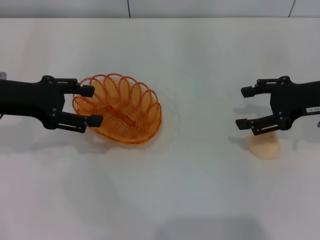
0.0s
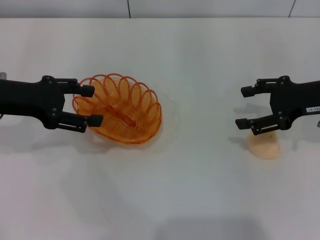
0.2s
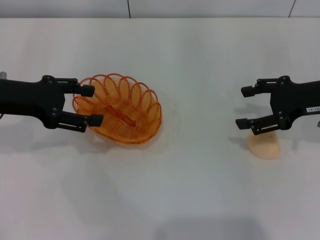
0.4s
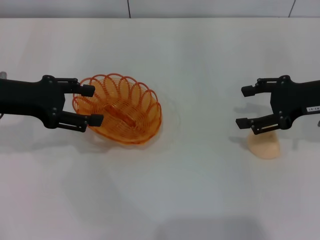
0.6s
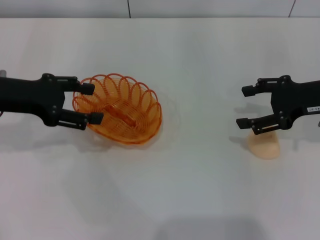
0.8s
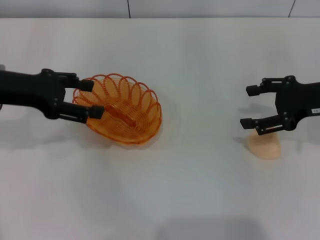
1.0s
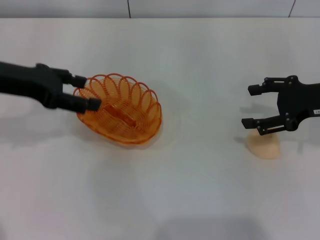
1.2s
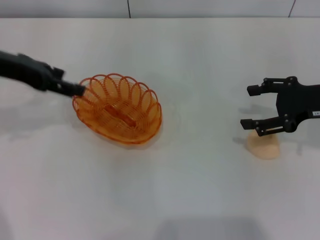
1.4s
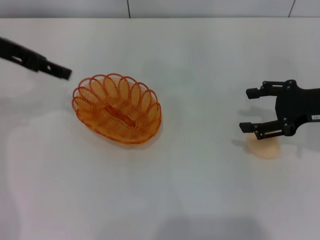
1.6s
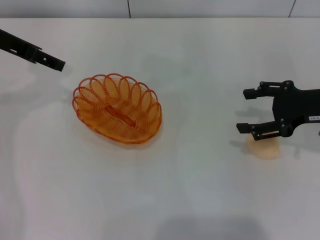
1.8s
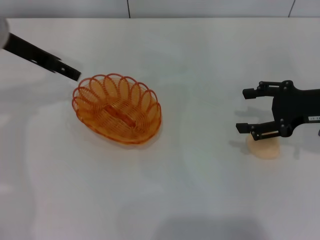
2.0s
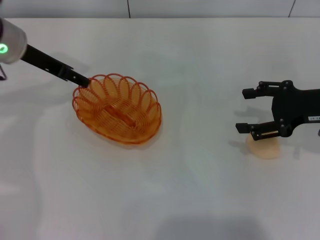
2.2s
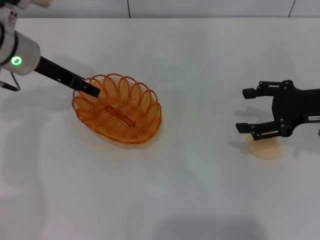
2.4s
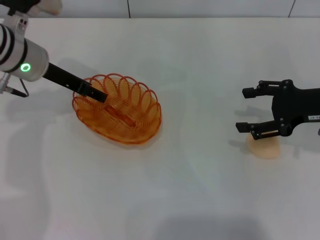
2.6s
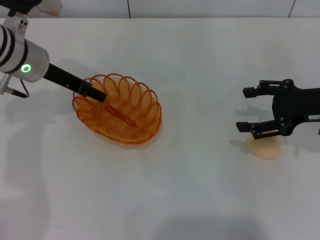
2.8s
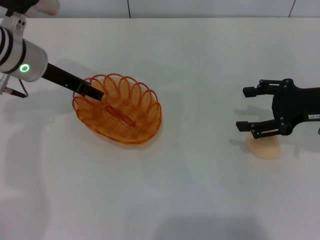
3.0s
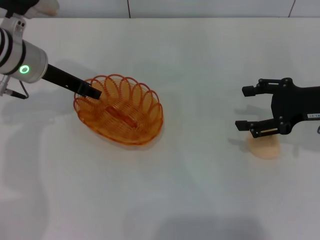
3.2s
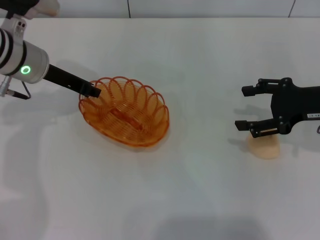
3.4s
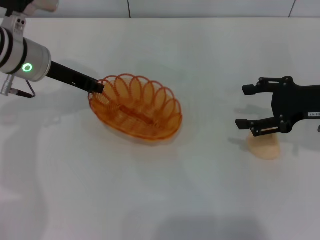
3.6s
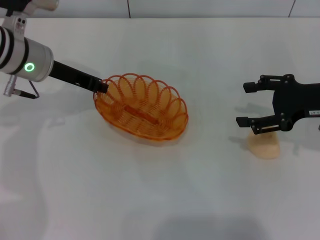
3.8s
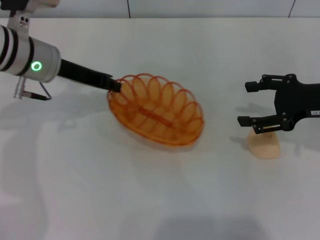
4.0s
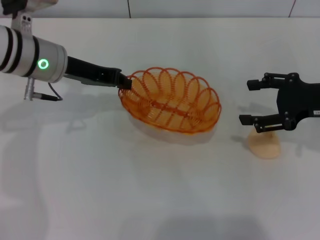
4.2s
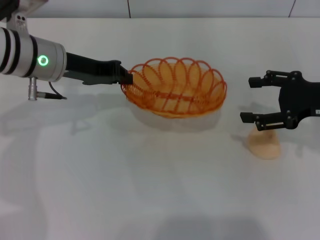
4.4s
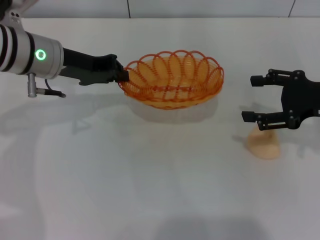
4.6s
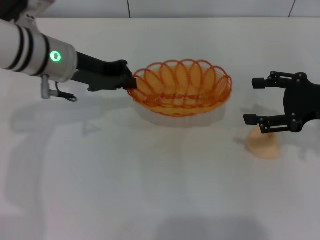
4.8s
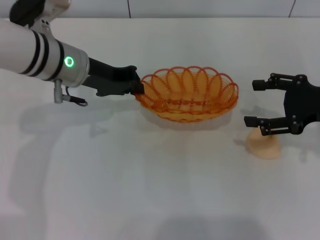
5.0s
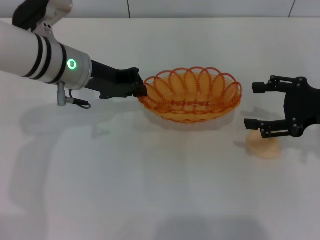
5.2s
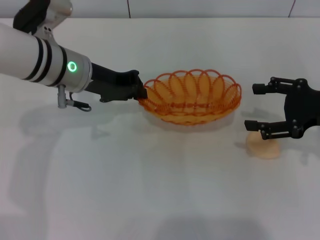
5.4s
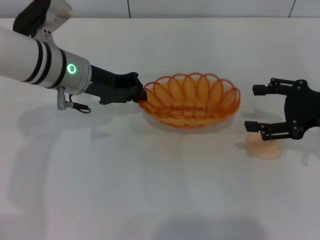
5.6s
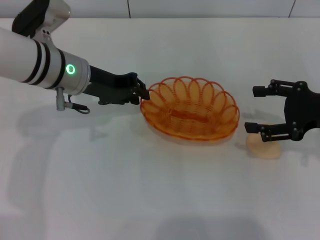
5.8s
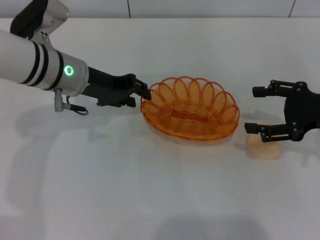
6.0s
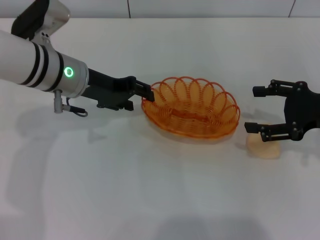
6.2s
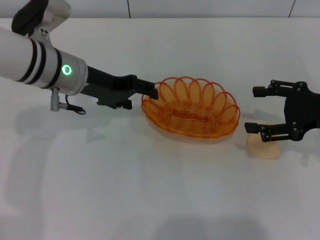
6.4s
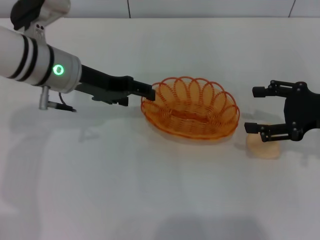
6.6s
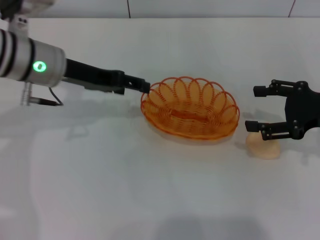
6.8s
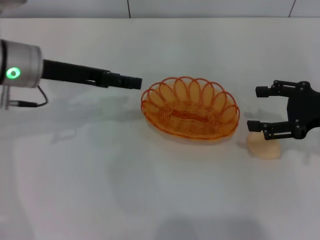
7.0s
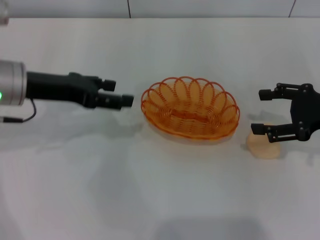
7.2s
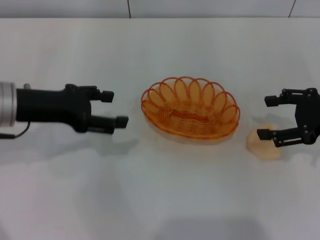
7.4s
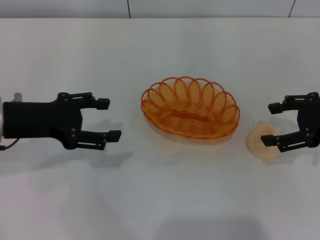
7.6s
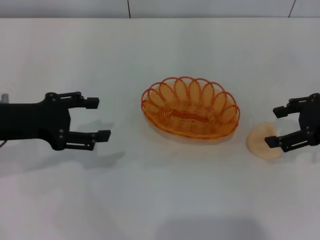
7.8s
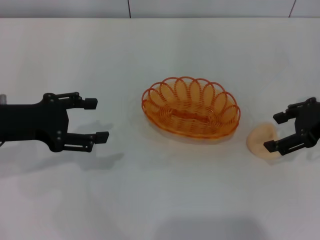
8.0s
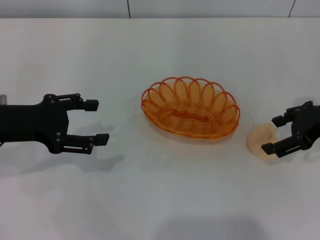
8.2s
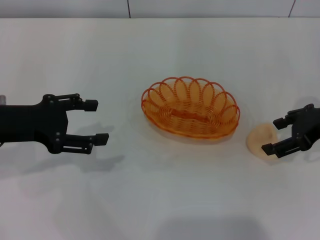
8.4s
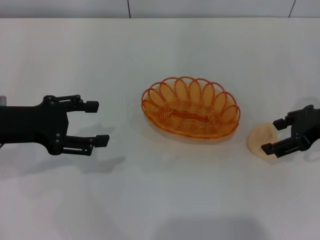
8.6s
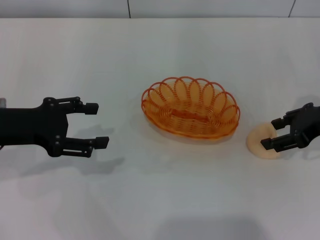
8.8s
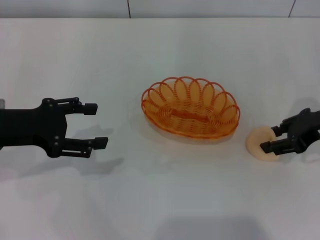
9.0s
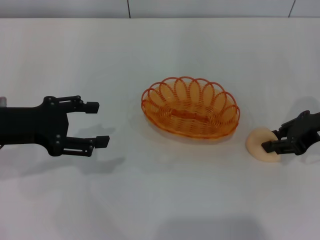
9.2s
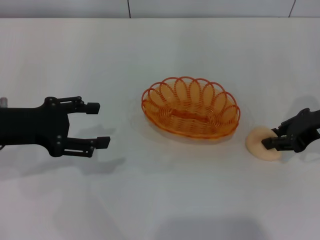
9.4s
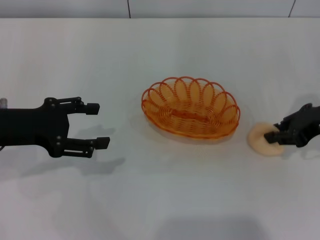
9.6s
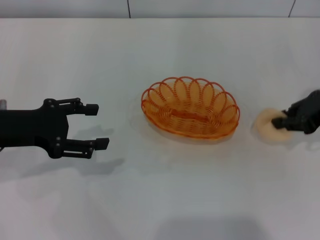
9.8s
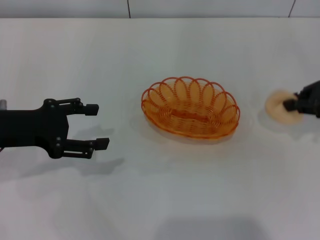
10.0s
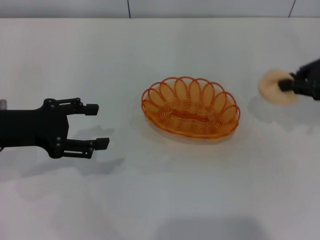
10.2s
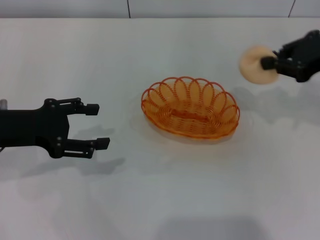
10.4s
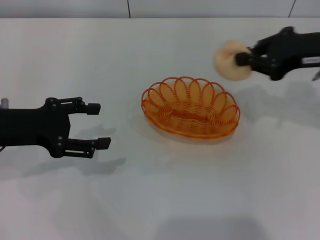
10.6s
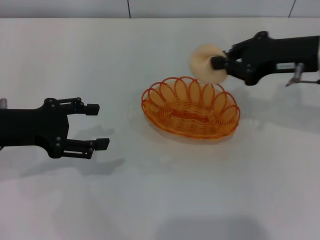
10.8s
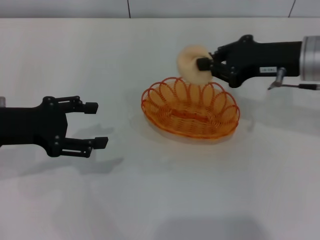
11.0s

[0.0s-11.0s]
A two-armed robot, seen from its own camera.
Step, 0.0s to 4.0s: Pick up the basket with the left gripper.
Step, 4.2s to 6.8s: Place the basket in the center of view with the left gripper.
Step, 7.0s to 10.2s: Pick up the egg yolk pastry with the right gripper.
0.0s to 1.6s: The left gripper travels upward by about 10 cm.
1.6s to 3.2s: The left gripper is displaced downward and to the right by about 10 cm, and closes up.
3.2s to 4.8s: The left gripper closes.
4.8s to 6.2s: The left gripper opens its fingers.
6.2s to 7.8s: The left gripper shifts about 15 cm to the left and backward, and opens up.
7.8s to 9.4s: The right gripper closes.
9.4s to 11.0s: The right gripper travels to the left by approximately 5 cm.

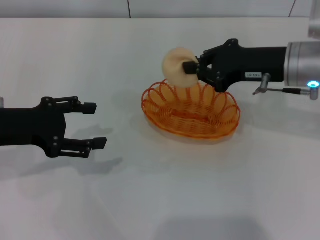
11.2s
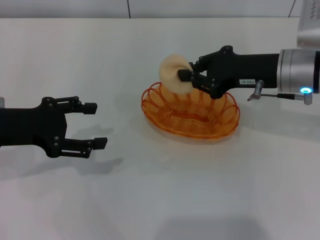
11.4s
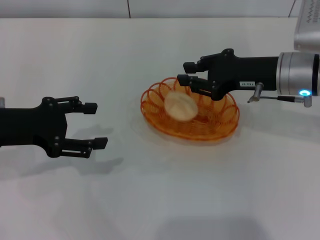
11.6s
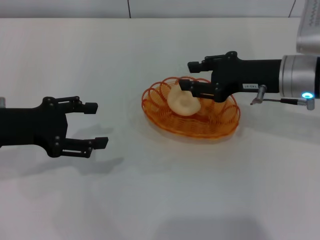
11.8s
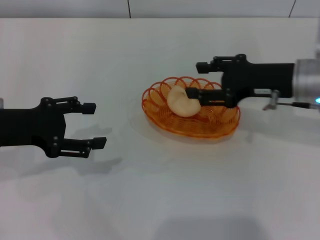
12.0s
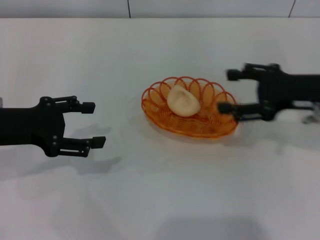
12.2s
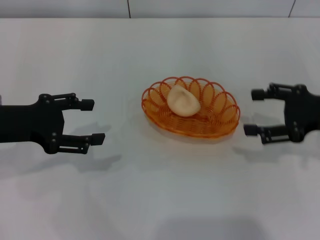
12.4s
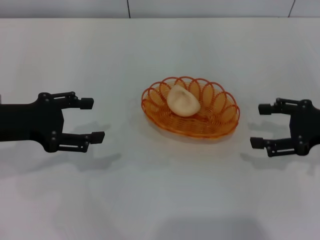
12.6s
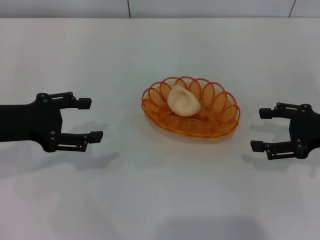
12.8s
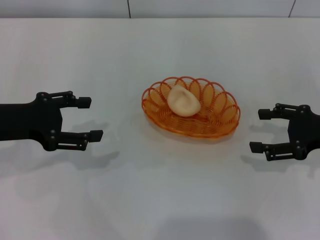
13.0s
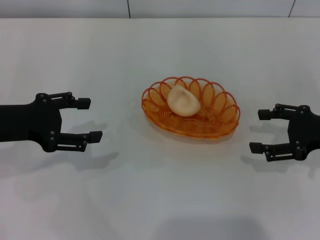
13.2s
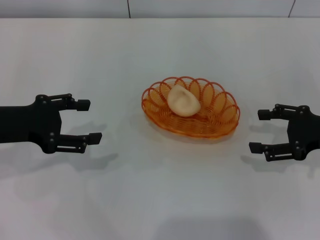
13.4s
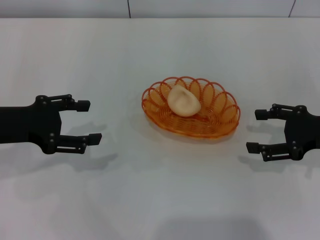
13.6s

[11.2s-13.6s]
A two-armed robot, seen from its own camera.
11.2s to 12.4s: The right gripper moves to the right and backward, about 10 cm, and opens.
12.4s to 13.6s: The grippers make only small movements.

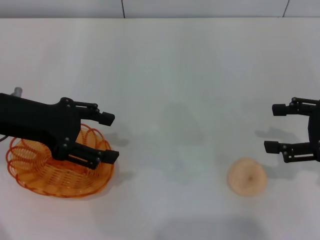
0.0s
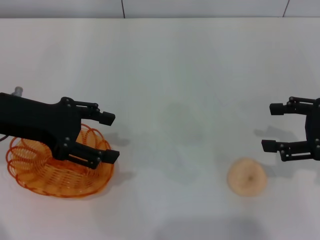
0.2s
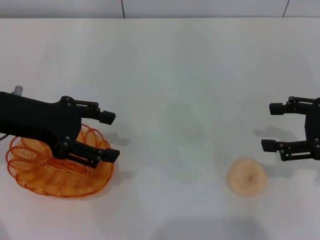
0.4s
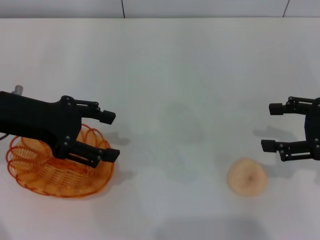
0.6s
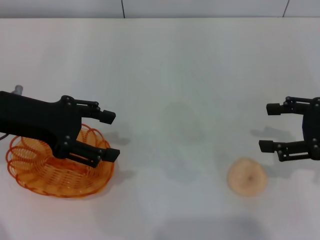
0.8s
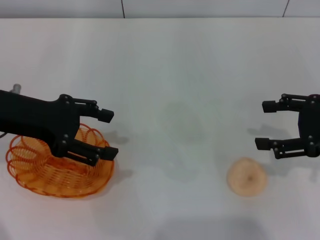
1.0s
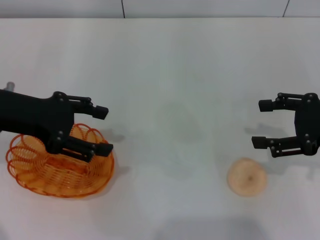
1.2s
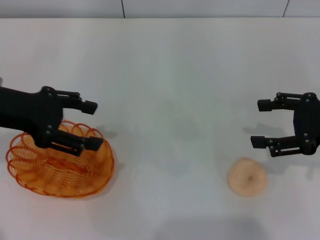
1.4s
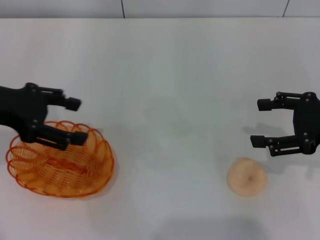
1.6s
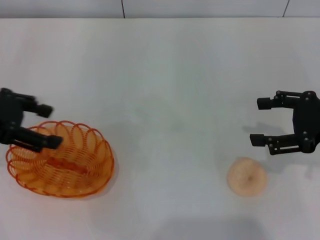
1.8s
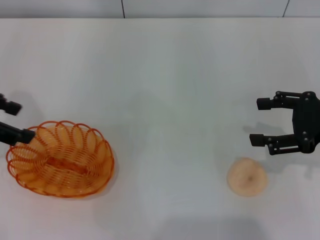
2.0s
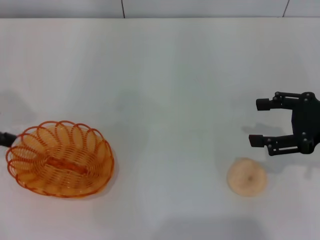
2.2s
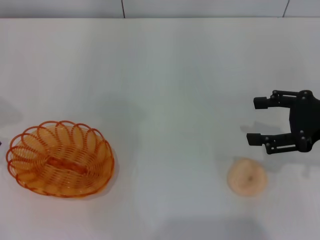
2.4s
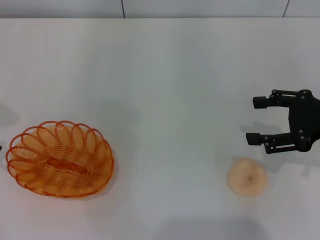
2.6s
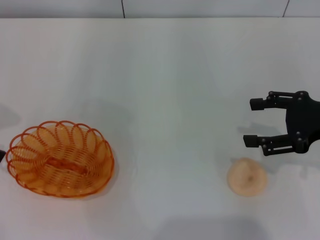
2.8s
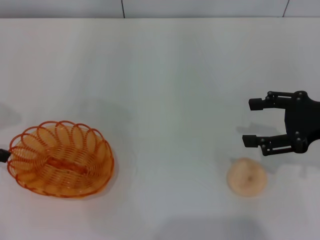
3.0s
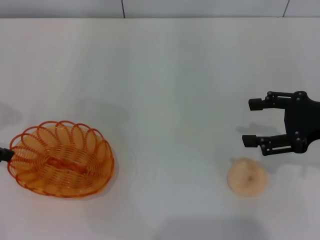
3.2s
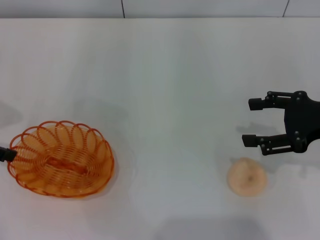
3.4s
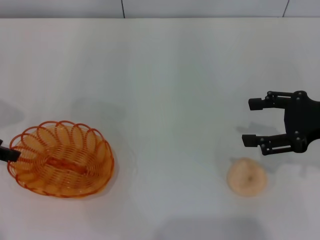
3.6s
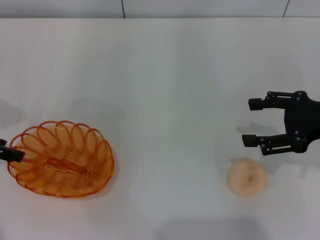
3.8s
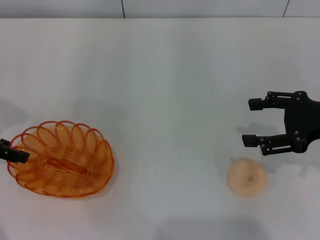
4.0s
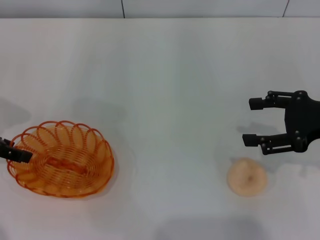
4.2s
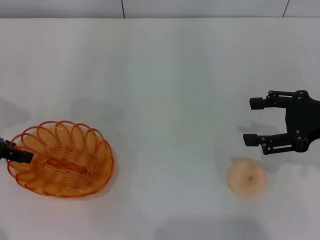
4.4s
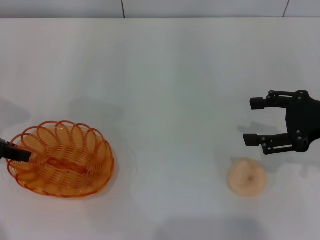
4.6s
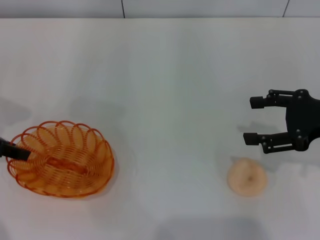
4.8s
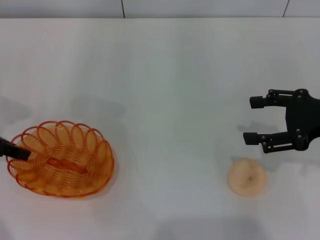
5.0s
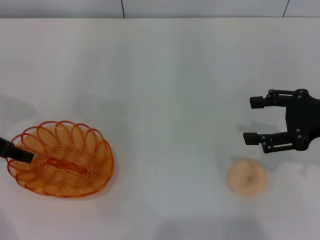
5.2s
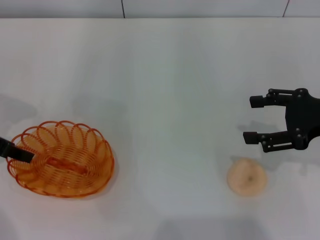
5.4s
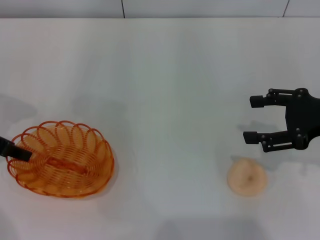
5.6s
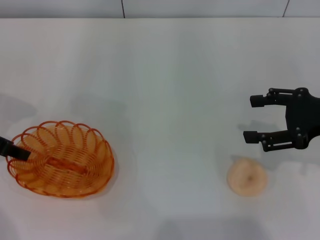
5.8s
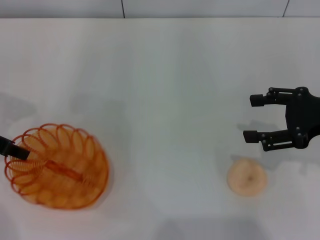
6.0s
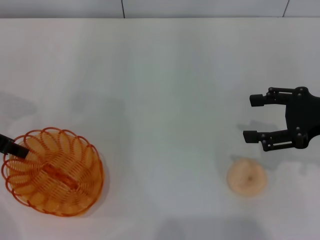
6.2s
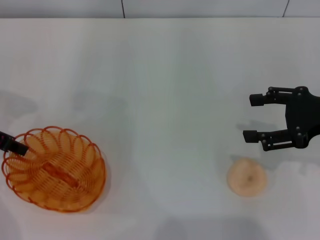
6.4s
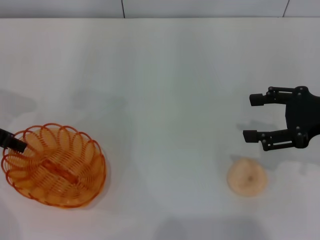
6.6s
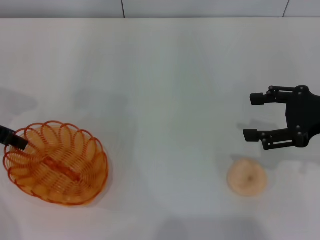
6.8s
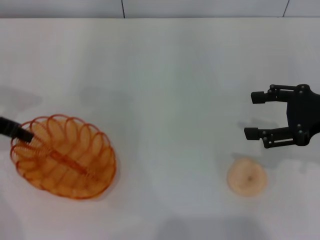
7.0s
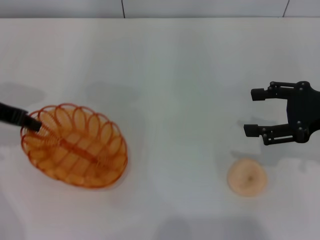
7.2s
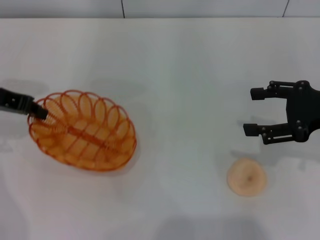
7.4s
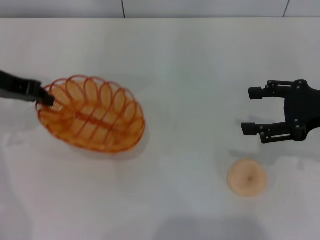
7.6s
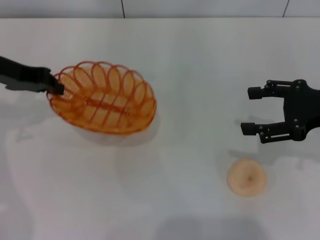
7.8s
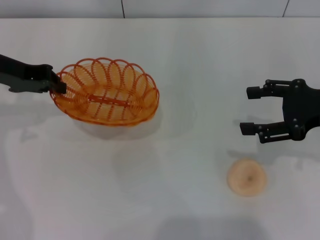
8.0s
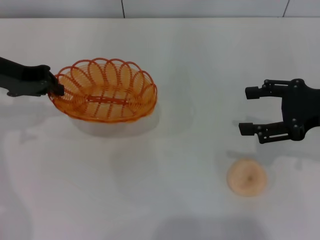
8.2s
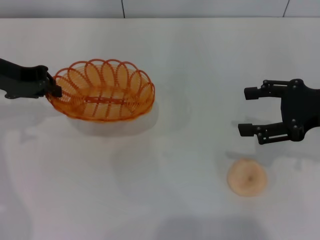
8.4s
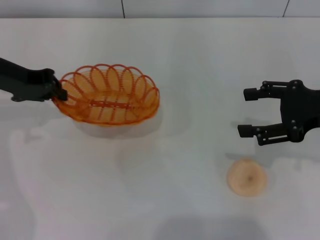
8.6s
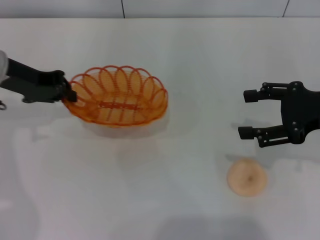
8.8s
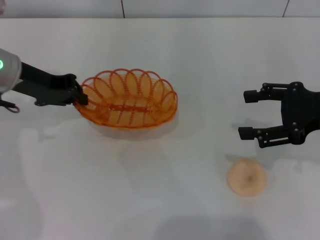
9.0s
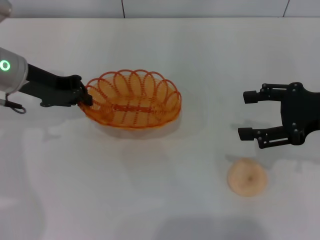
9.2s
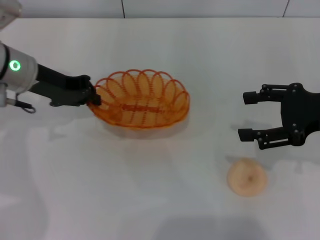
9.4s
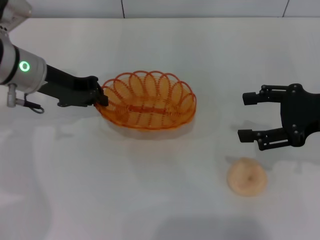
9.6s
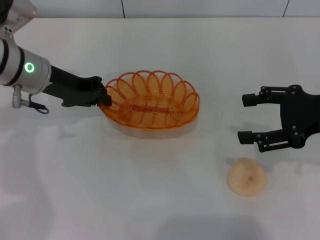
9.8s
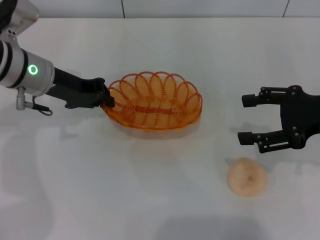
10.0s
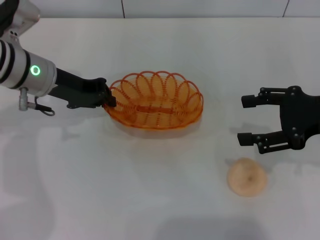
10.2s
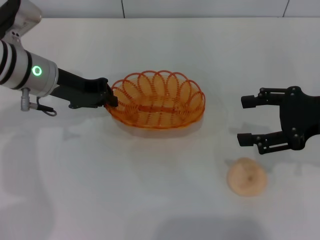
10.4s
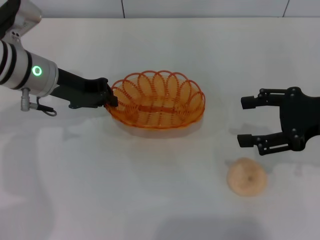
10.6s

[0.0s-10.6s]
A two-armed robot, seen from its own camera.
Step, 0.0s to 8.4s: Pick up the basket with the left gripper.
0.0s to 1.6s: There are only small adjustments of the grippers.
1.6s to 3.0s: The left gripper shifts about 5 cm to the left.
3.0s to 4.6s: The grippers stay close to where they were, moving slightly.
4.6s to 6.0s: The left gripper closes its fingers.
6.0s to 7.6s: The left gripper shifts by roughly 5 cm.
7.6s to 9.0s: The left gripper ends up approximately 5 cm from where it was.
9.0s to 10.6s: The grippers stay close to where they were, moving slightly.
